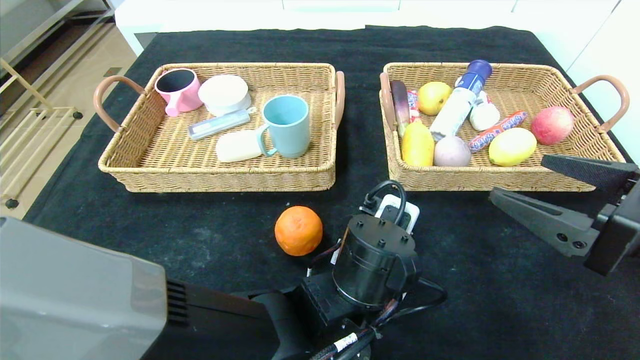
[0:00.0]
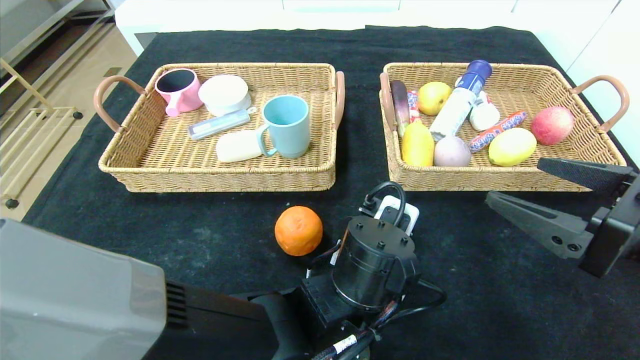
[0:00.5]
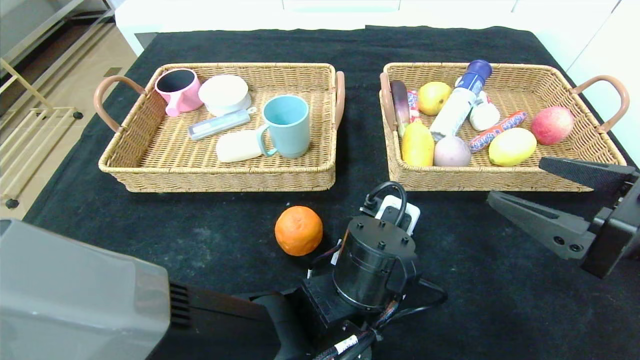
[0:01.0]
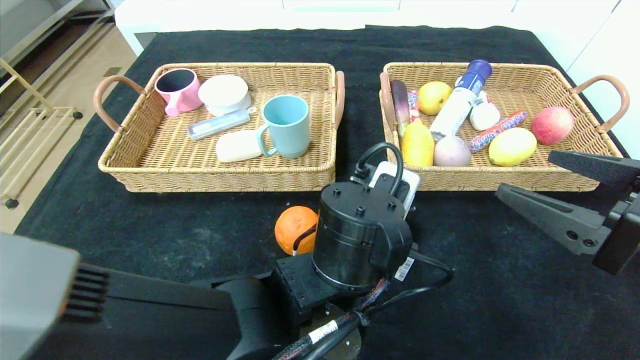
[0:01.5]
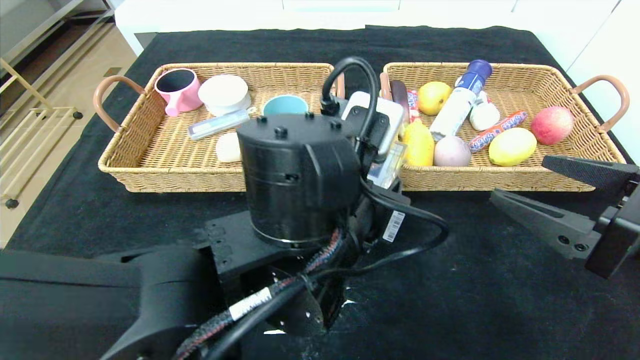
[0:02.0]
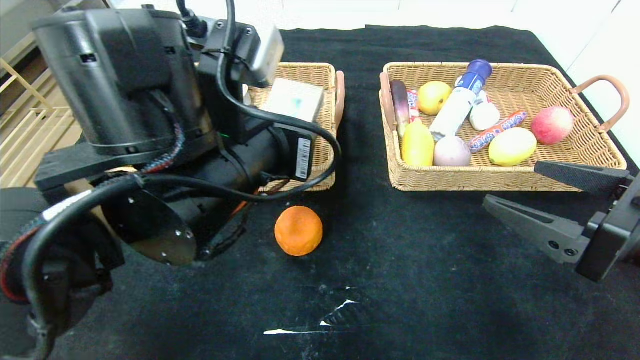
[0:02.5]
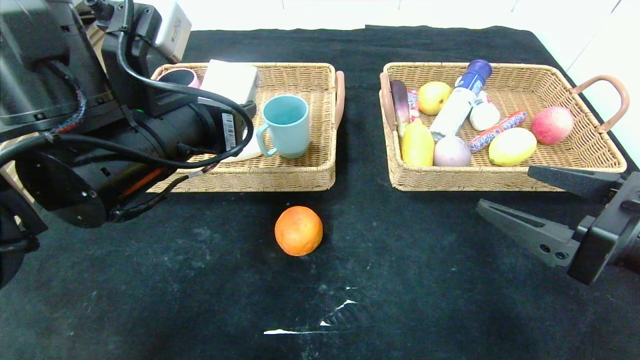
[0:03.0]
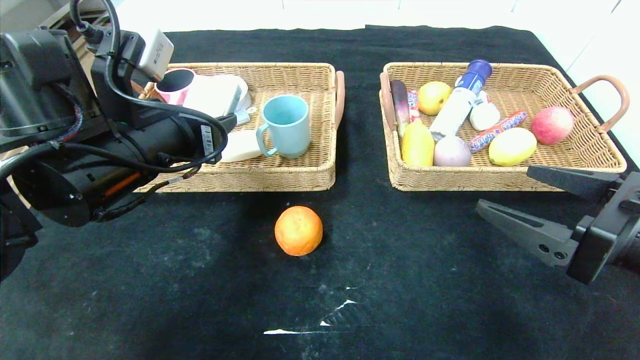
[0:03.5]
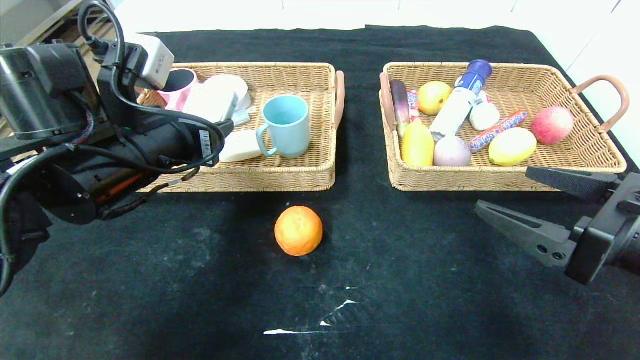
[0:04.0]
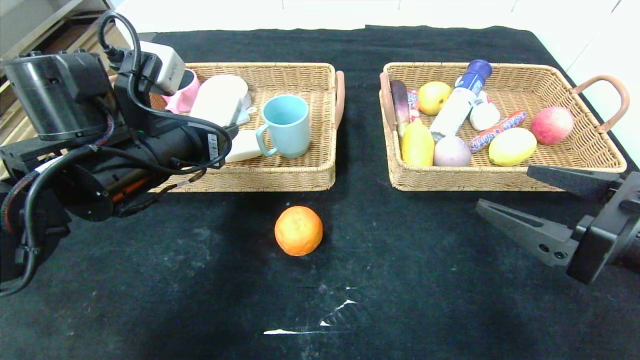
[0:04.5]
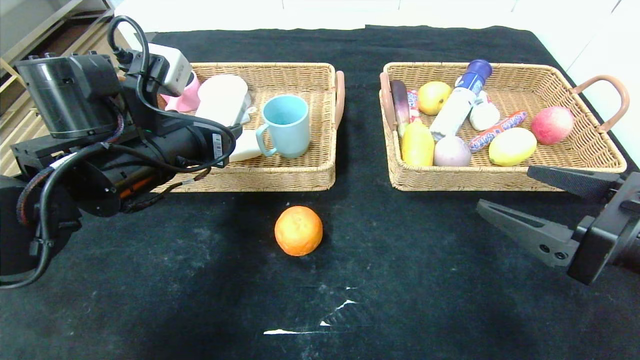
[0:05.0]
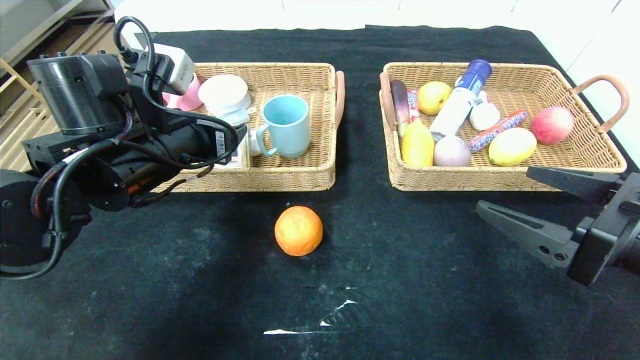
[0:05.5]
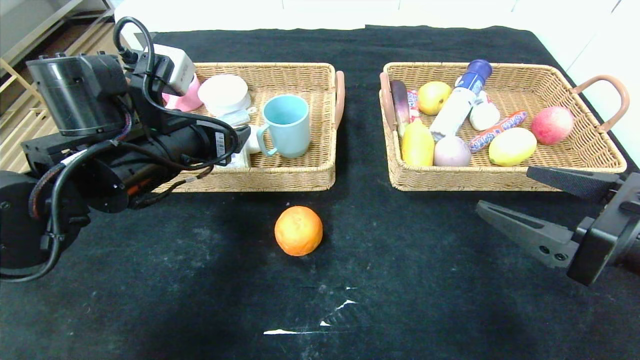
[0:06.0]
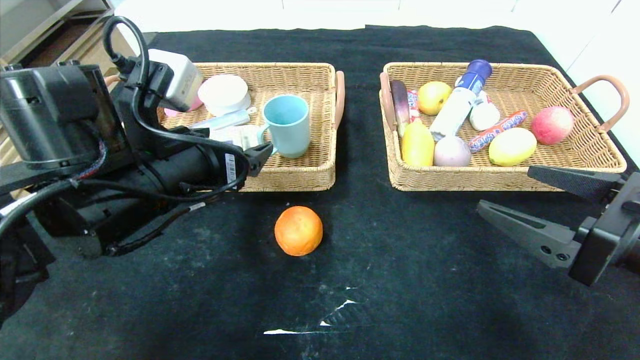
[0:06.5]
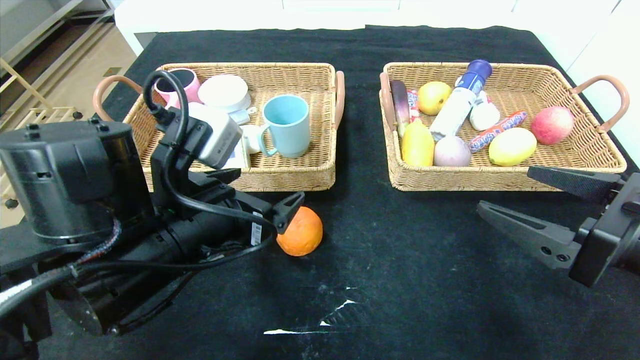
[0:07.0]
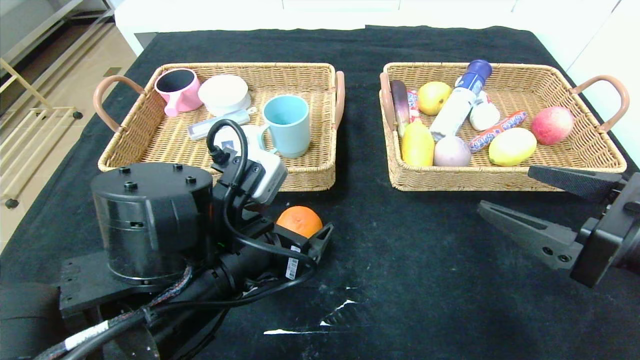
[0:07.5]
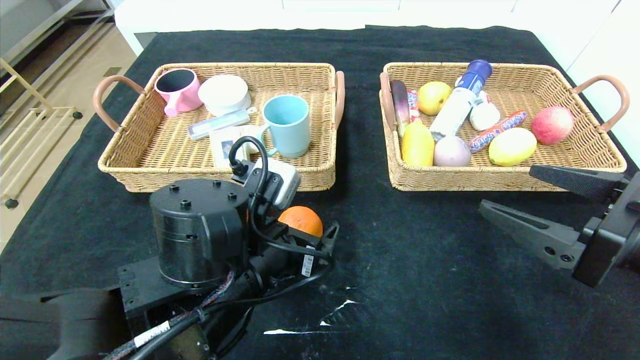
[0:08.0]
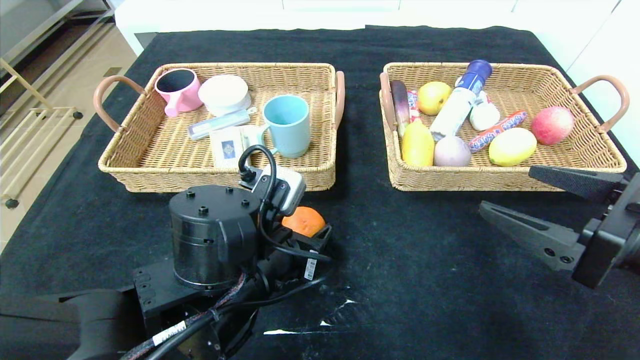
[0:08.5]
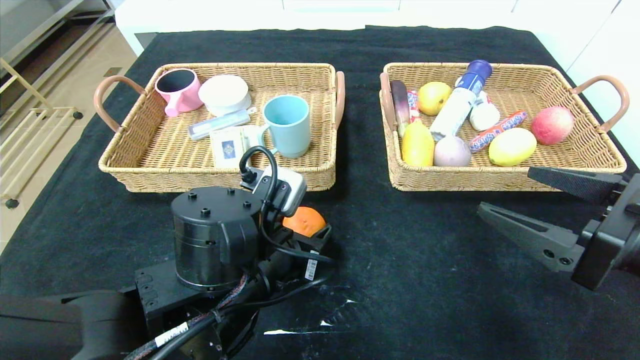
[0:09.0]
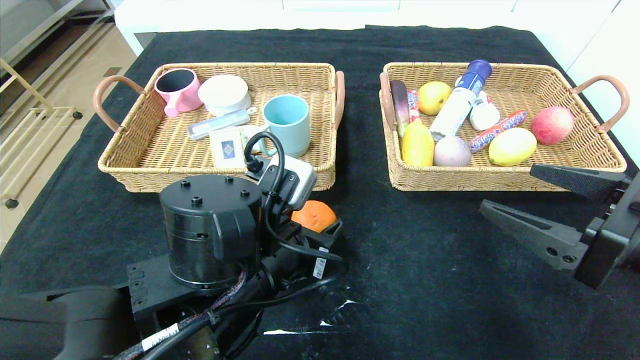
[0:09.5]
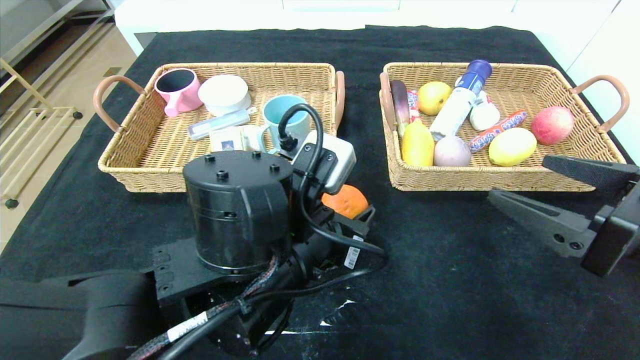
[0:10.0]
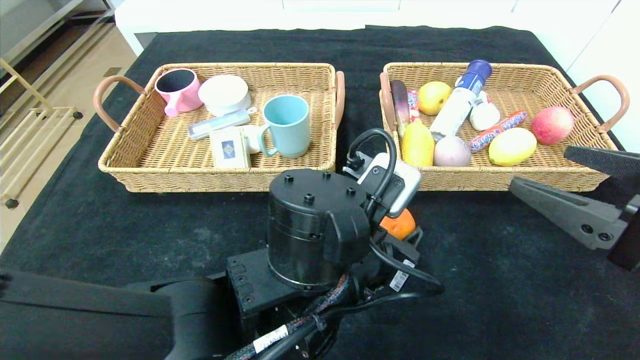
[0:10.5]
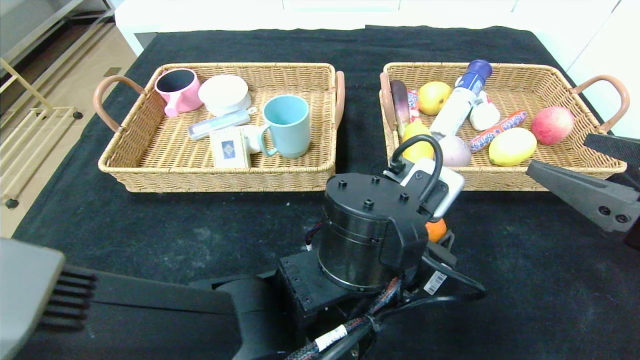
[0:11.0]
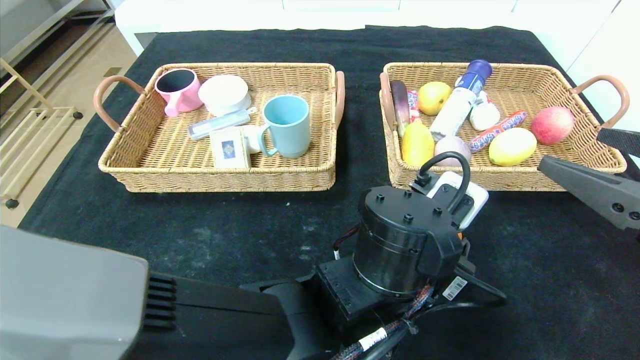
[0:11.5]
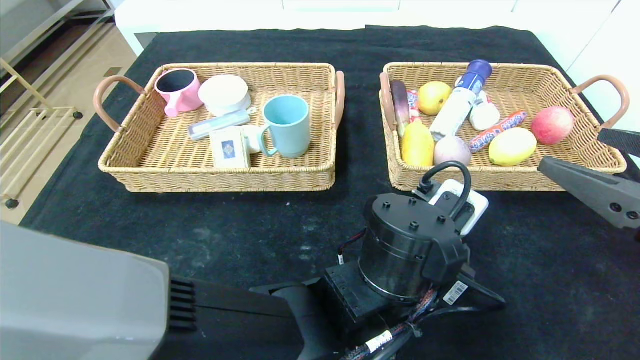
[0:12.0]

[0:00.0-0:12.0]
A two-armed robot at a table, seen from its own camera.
Step, 0:00.0 to 0:05.5: Grasp the playing cards and put it in the left basket.
0:00.0 to 0:02.0: The left gripper travels upward by approximately 10 cm.
0:02.0 to 0:04.0: The left gripper moves to the left, approximately 20 cm.
0:04.0 to 0:06.0: The grippers move only a little.
0:06.0 to 0:08.0: The left gripper moves to the right, backward and downward, approximately 15 cm.
0:08.0 to 0:10.0: The left gripper moves approximately 5 cm, and closes its fingers.
0:10.0 to 0:12.0: The left gripper travels to the right by roughly 10 cm.

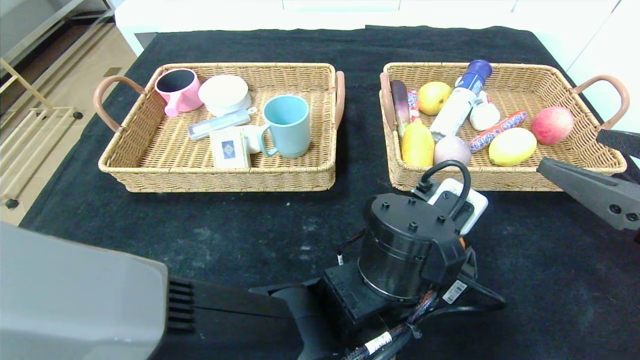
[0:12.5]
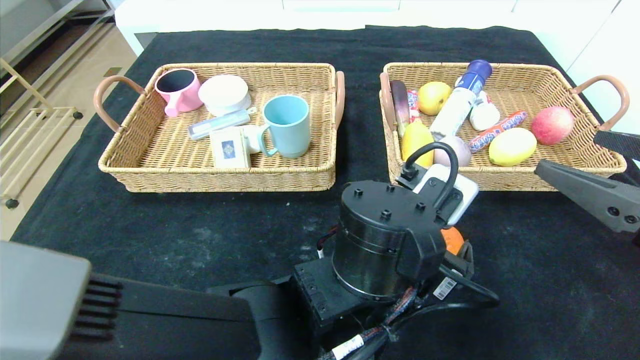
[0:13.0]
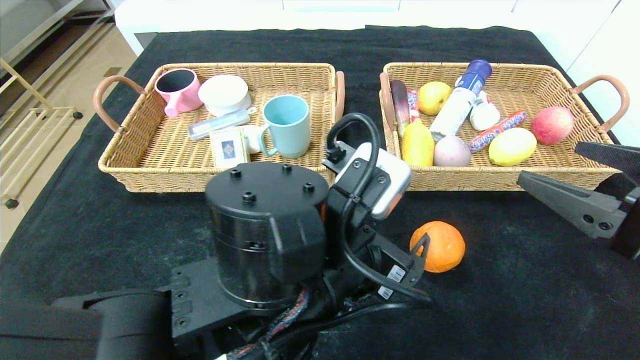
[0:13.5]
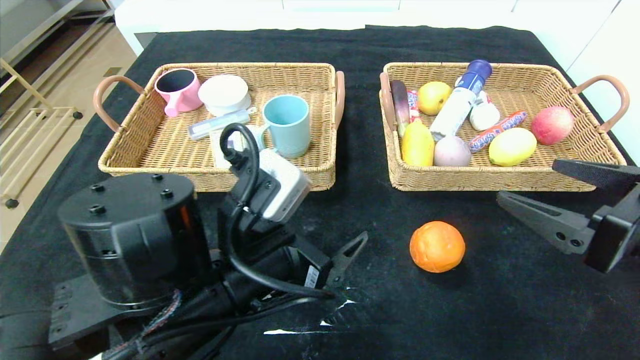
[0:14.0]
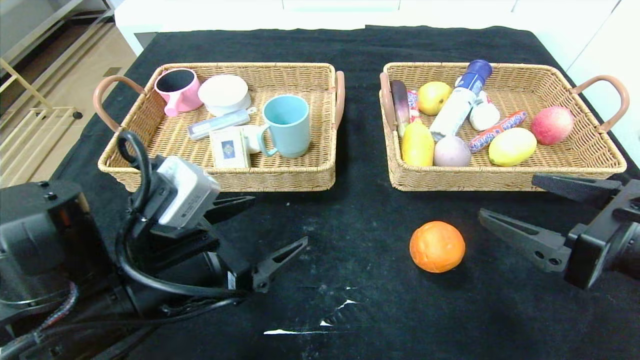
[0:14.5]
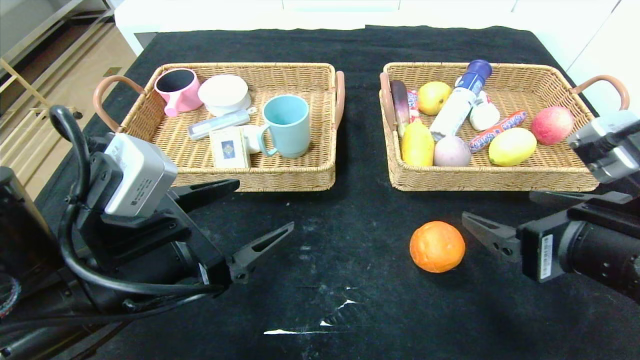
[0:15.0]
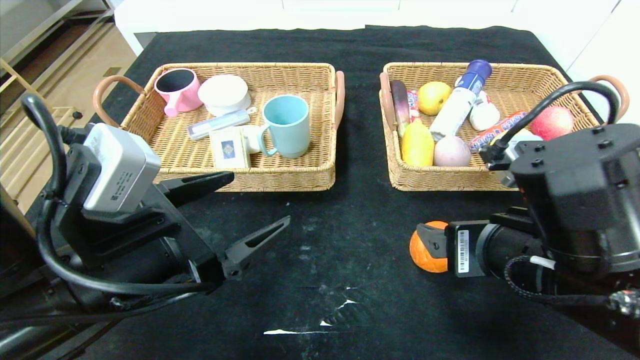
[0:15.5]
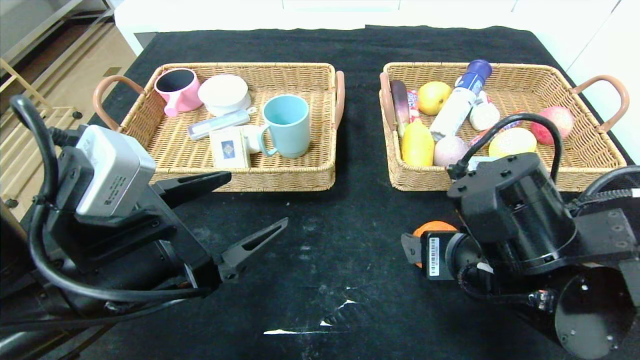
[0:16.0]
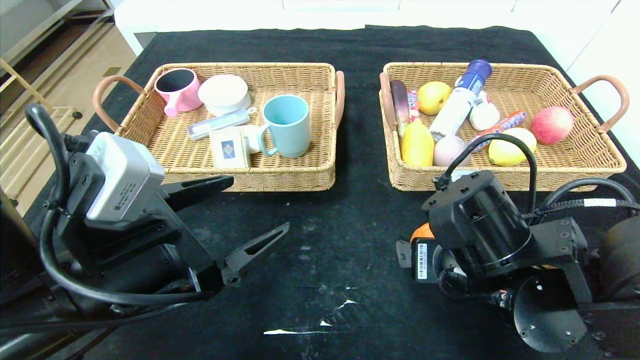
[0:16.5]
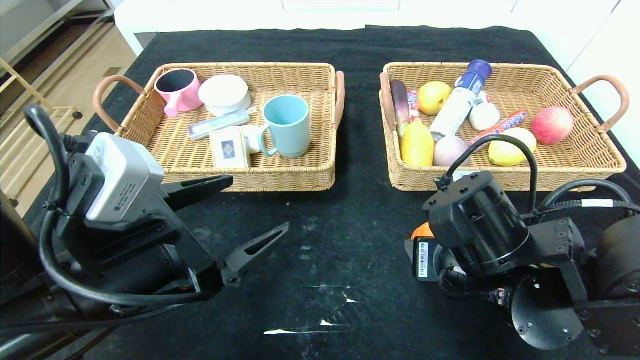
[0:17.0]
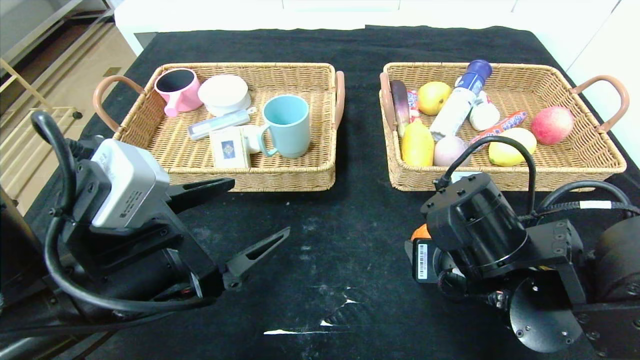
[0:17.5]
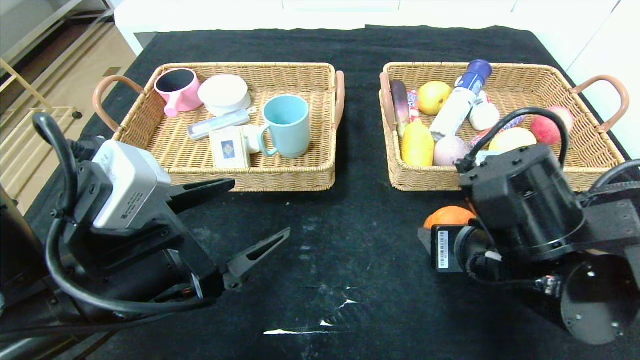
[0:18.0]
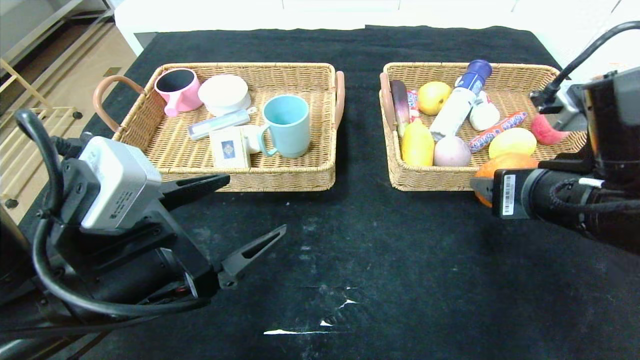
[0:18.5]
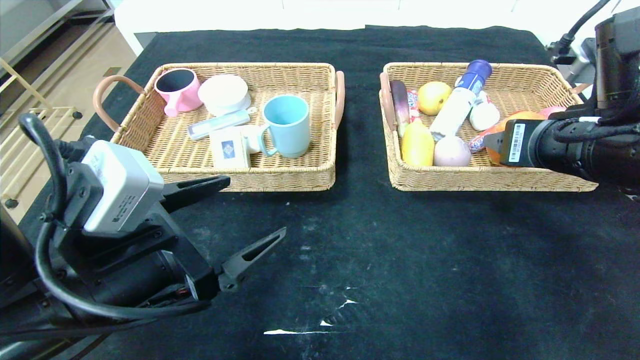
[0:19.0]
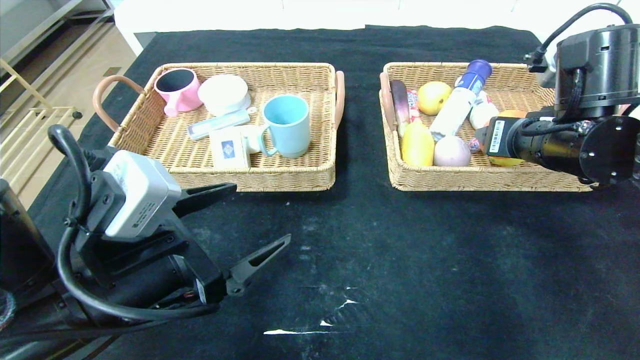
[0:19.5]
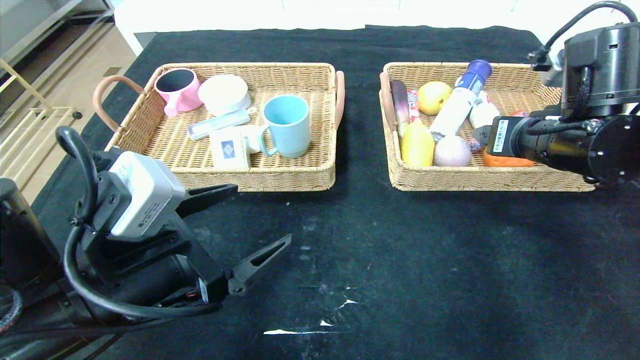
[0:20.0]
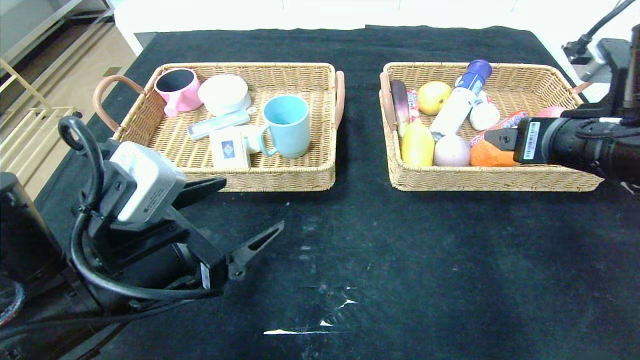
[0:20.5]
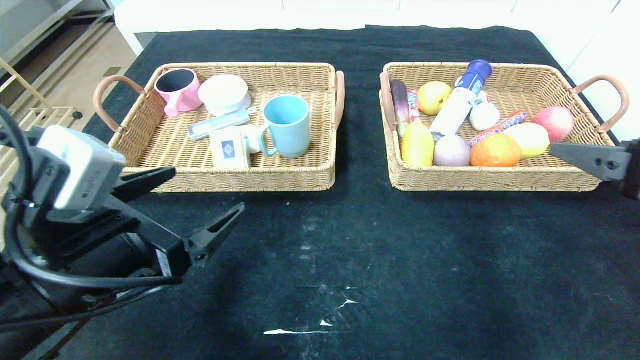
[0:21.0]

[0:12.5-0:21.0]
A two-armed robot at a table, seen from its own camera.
Step, 0:13.0 to 0:20.0: Grasp the orange and put it in the right basket.
0:12.5 to 0:14.5: The left gripper heads to the left, covering about 20 cm.
0:14.5 to 0:16.5: The right gripper shifts roughly 15 cm to the left, downward and forward.
0:16.5 to 0:19.0: The right gripper moves upward and to the right, roughly 15 cm.
0:19.0 to 0:21.0: The right gripper moves backward and to the right, approximately 10 cm.
